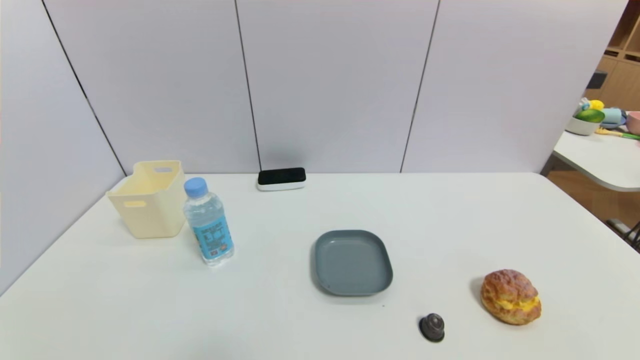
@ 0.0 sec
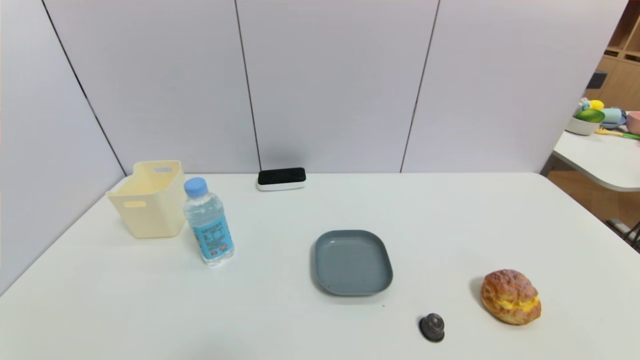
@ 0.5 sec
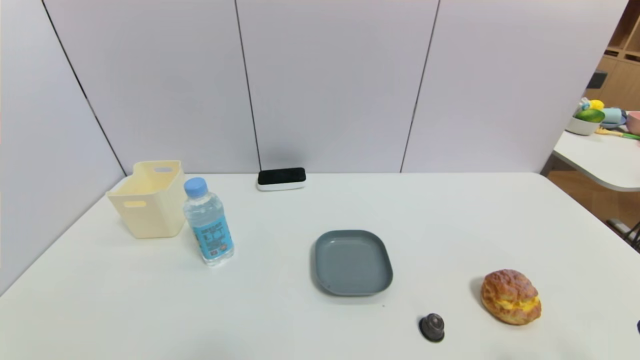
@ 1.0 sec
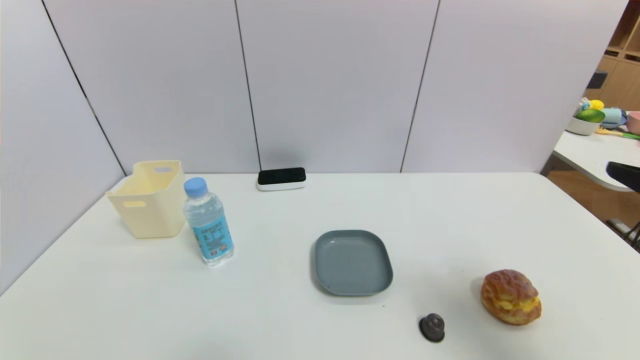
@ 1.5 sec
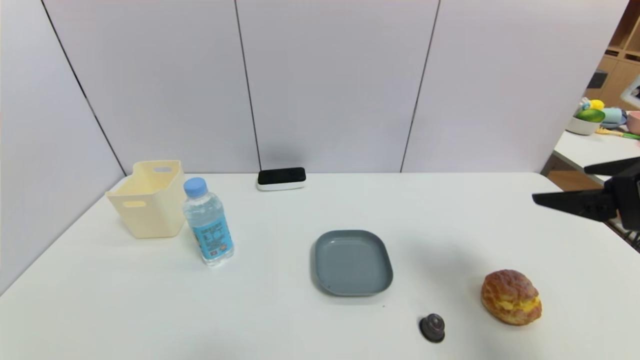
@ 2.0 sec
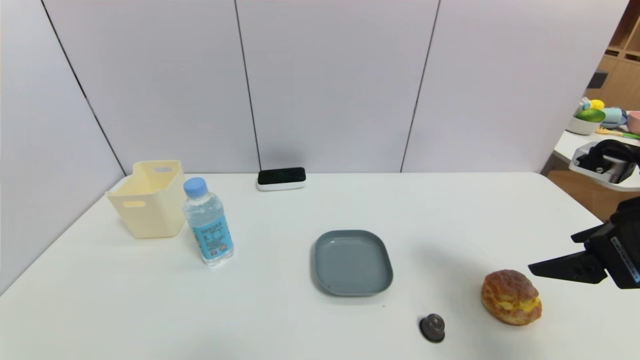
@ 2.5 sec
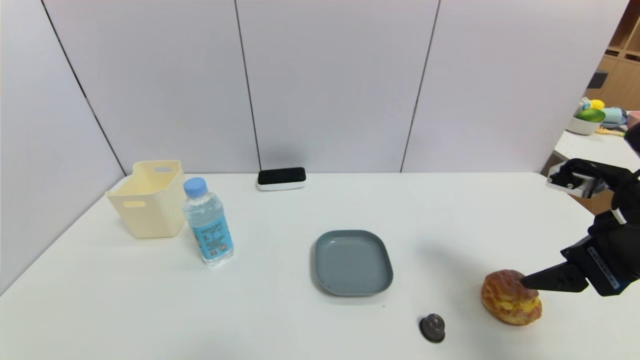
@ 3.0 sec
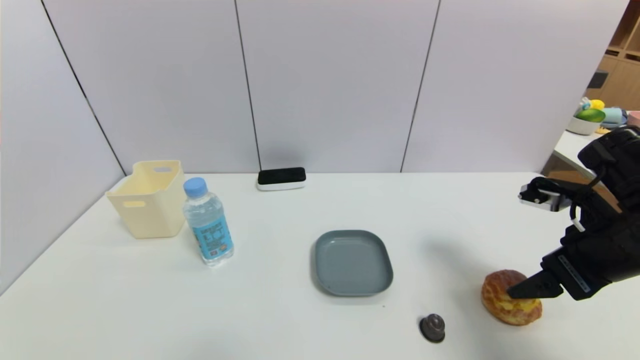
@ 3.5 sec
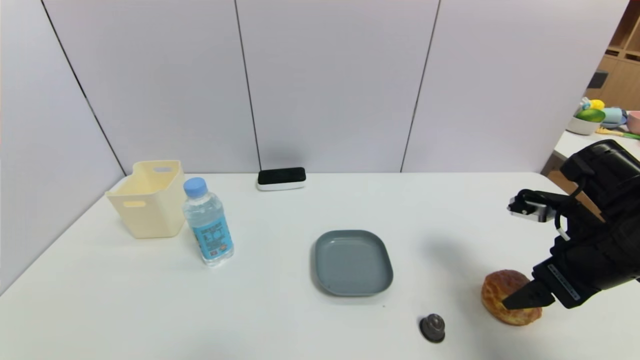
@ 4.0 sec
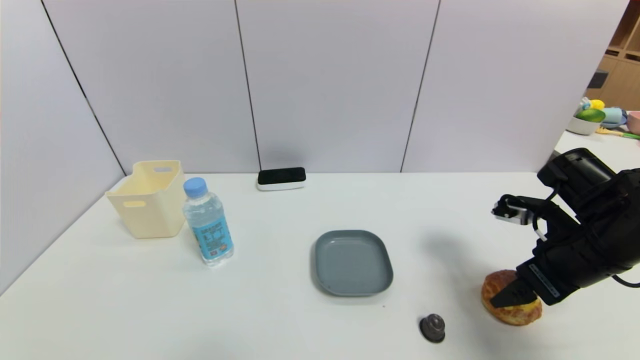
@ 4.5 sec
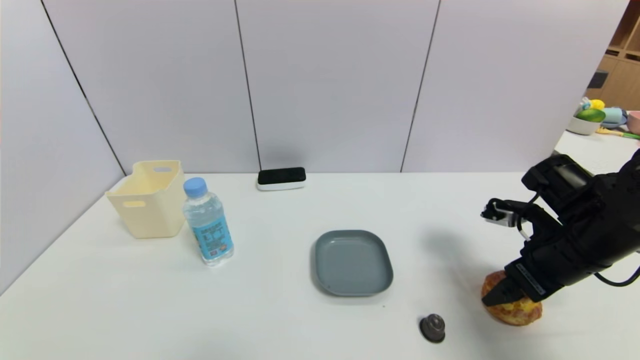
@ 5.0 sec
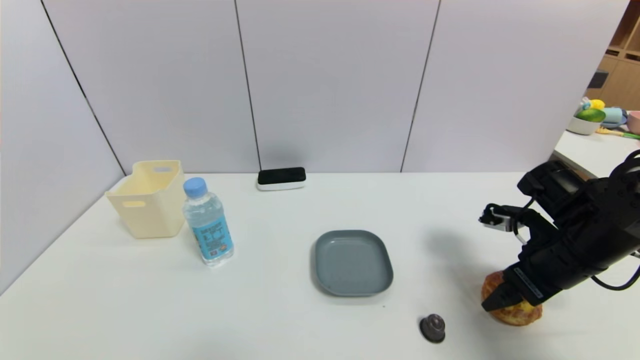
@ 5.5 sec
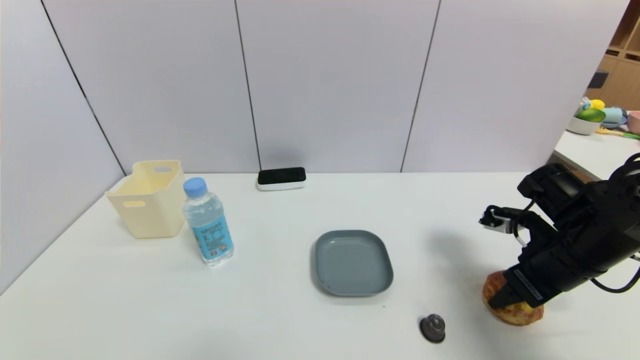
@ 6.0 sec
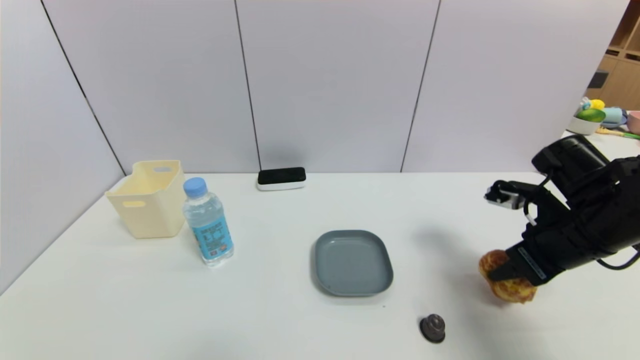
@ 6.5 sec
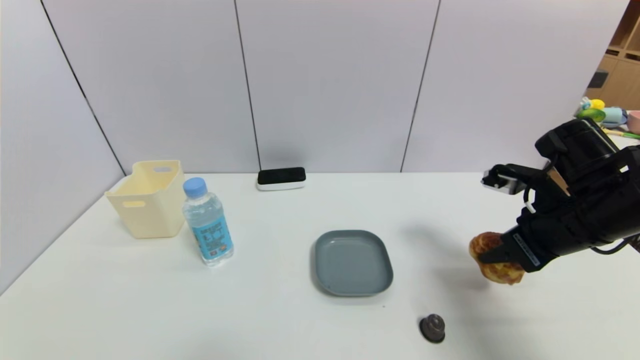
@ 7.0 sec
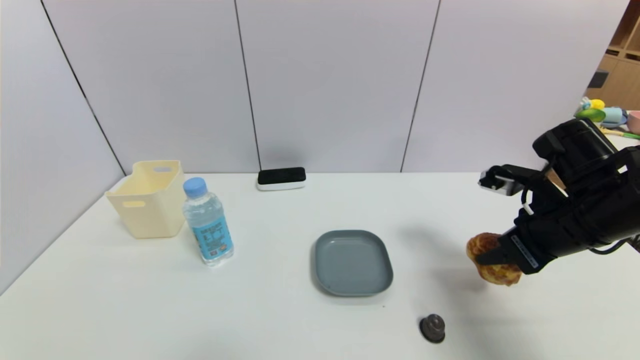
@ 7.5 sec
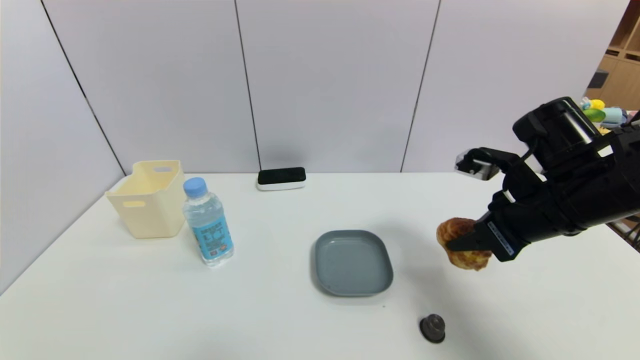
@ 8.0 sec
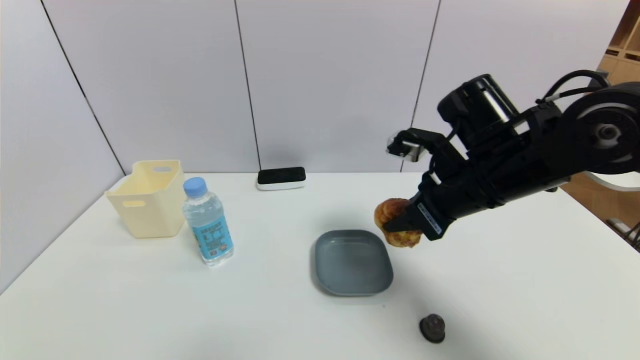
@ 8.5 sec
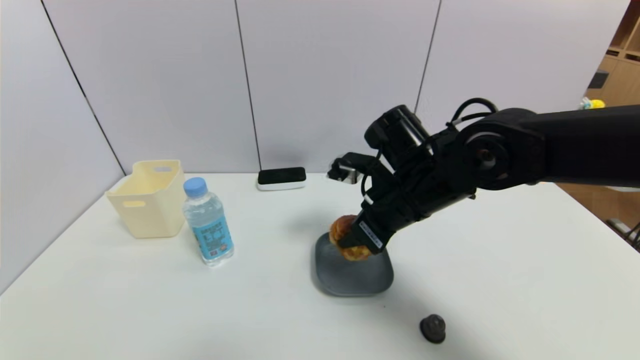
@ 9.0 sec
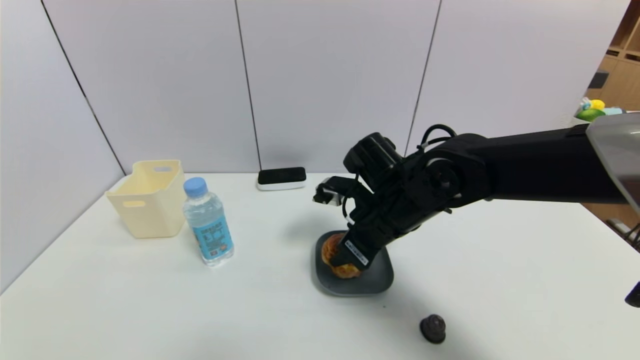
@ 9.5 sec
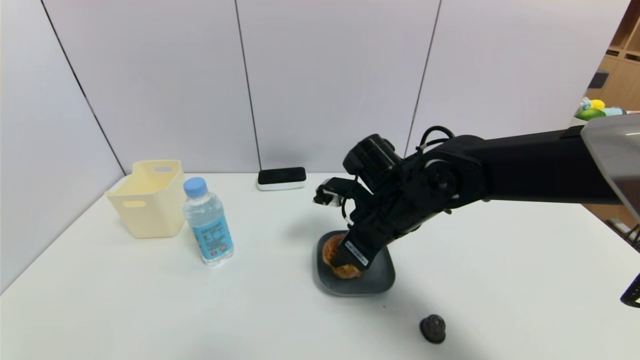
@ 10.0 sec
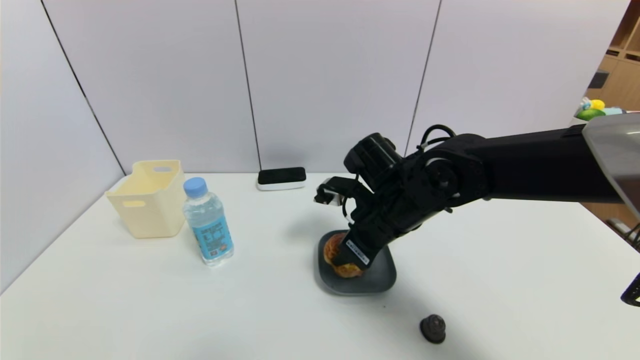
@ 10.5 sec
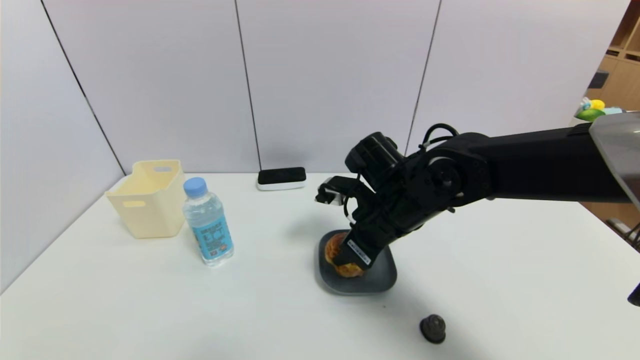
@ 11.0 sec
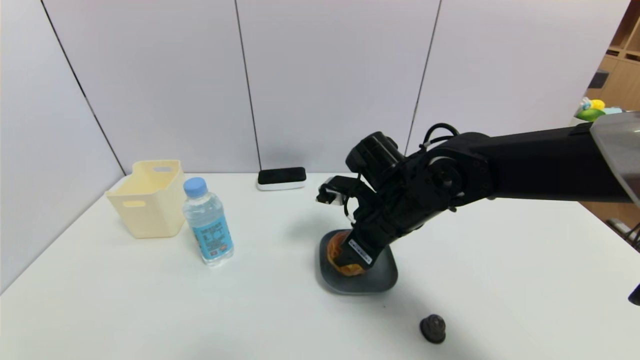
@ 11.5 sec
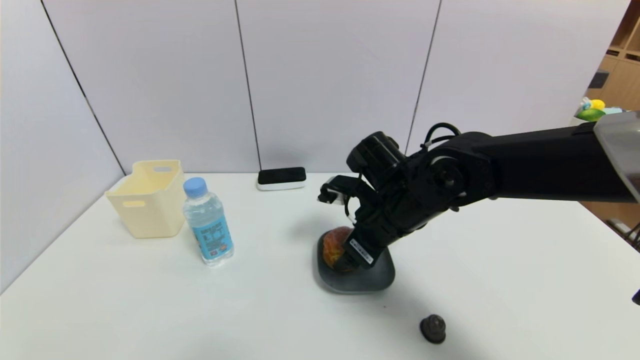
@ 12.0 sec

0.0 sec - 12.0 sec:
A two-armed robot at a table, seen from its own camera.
Task of the whole recording: use a gripper to pick the target object and place on the dish.
Step, 0.0 sec - 6.0 sec: Grasp the round bread with the right gripper.
0.0 sec - 2.0 sec: The right gripper moves upward and forward, about 30 cm.
2.0 sec - 4.0 sec: The right gripper moves downward, roughly 10 cm.
4.0 sec - 6.0 sec: The right gripper ends up roughly 5 cm from where it was, and closes.
6.0 sec - 8.0 sec: The right gripper heads upward and to the left, covering about 10 cm.
8.0 sec - 10.0 sec: The right gripper travels to the left by about 15 cm.
10.0 sec - 12.0 sec: The right gripper opens.

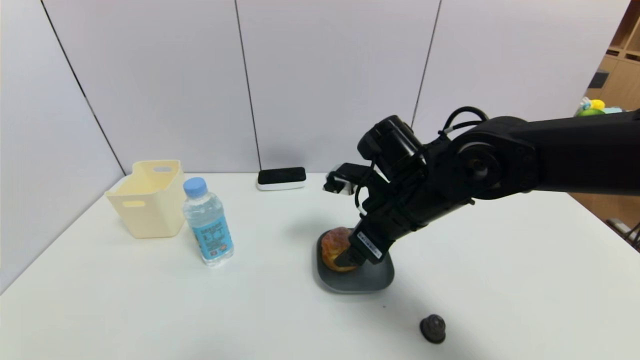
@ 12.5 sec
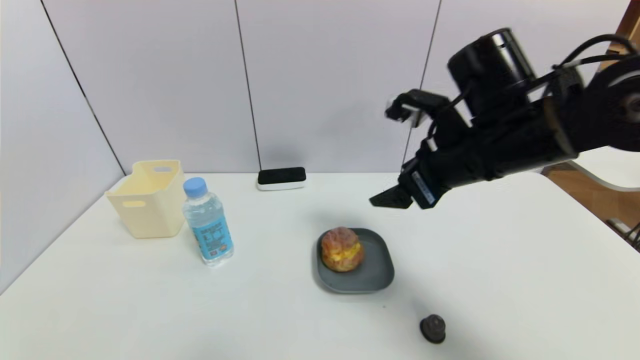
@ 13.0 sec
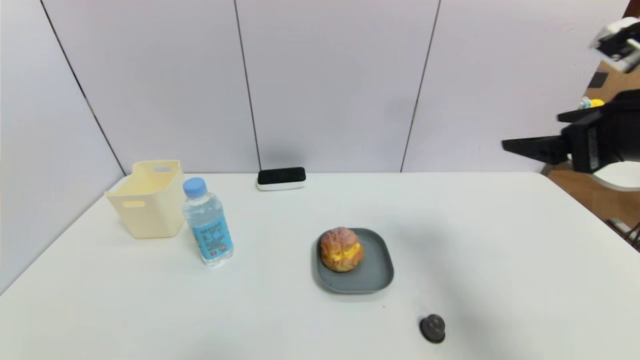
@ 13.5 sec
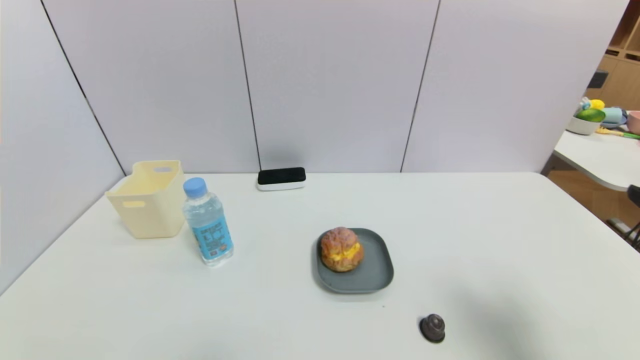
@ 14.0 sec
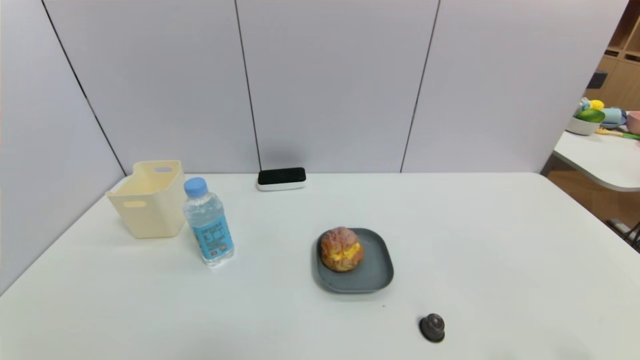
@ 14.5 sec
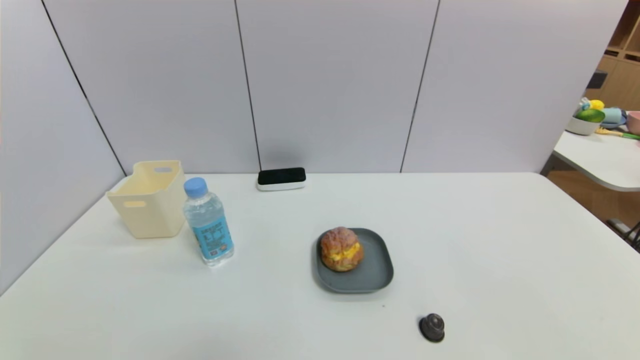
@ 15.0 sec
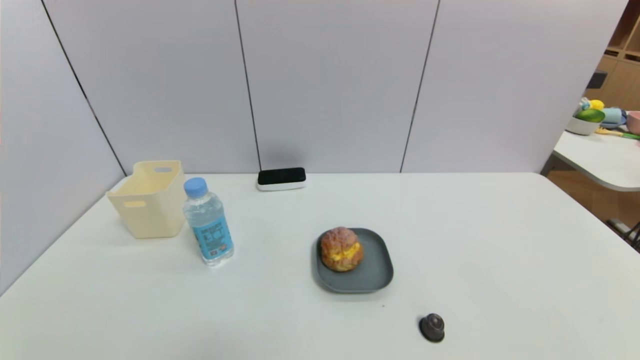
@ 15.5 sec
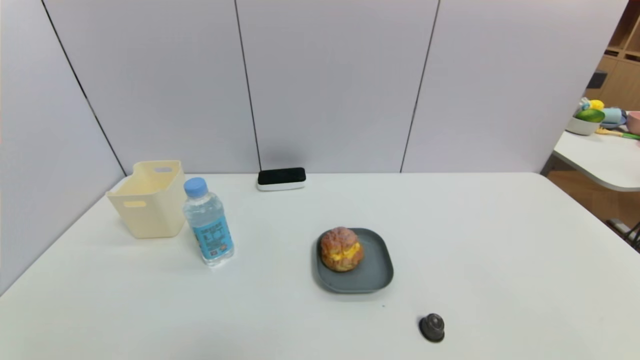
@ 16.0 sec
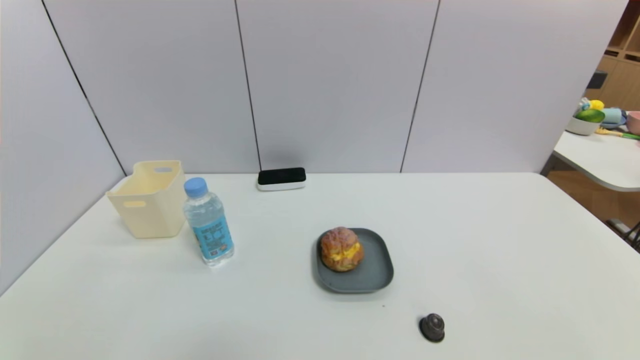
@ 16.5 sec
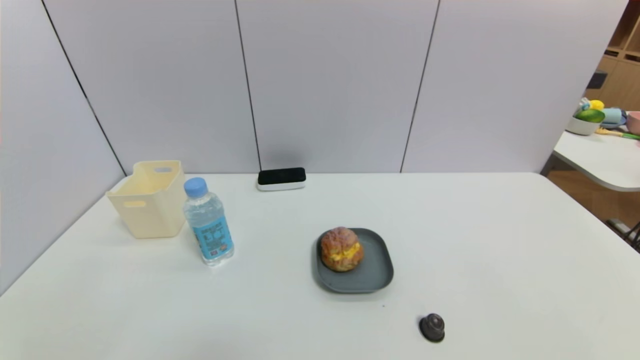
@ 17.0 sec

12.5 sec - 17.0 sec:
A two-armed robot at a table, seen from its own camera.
Task of the whole recording: use a gripper to pick the target object and place on the dish.
12.5 sec - 14.5 sec: The right gripper moves backward and to the right, about 35 cm.

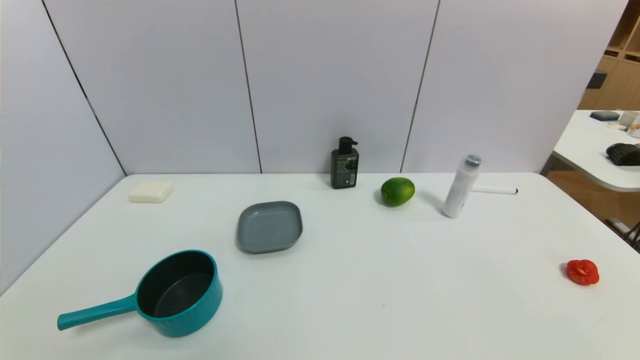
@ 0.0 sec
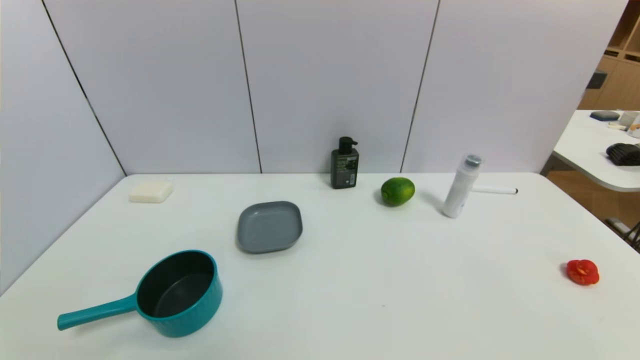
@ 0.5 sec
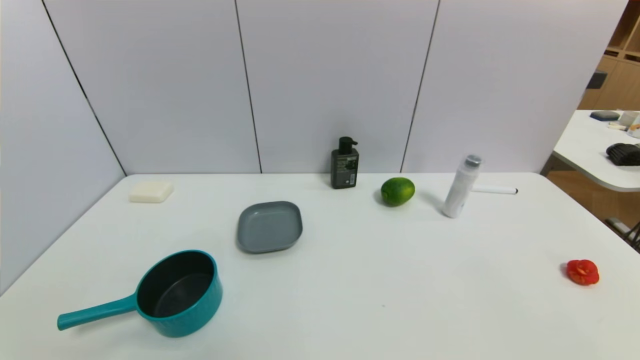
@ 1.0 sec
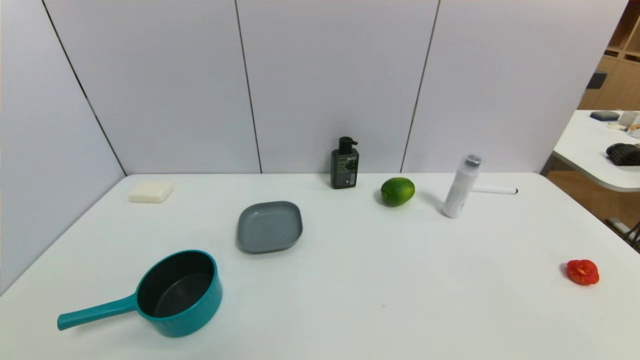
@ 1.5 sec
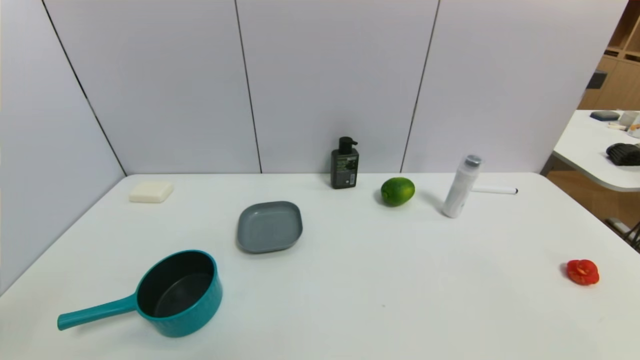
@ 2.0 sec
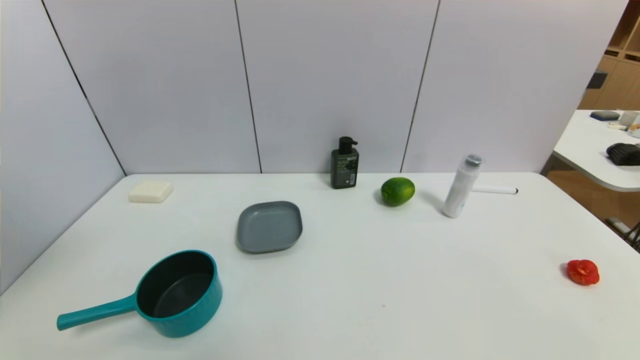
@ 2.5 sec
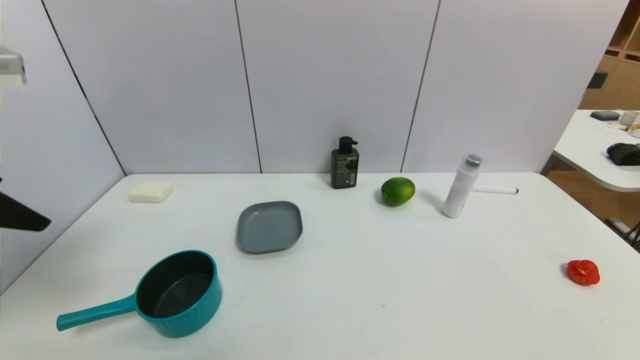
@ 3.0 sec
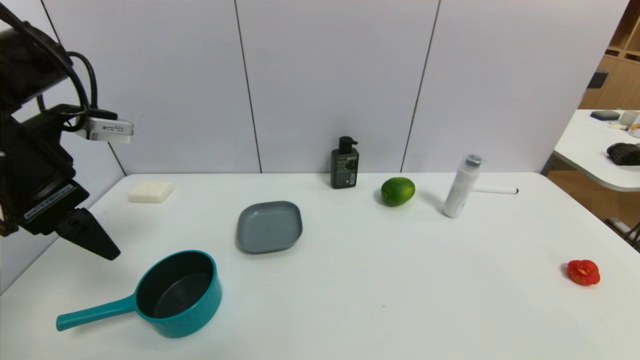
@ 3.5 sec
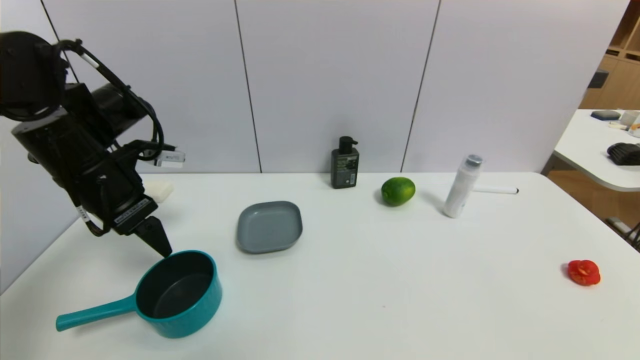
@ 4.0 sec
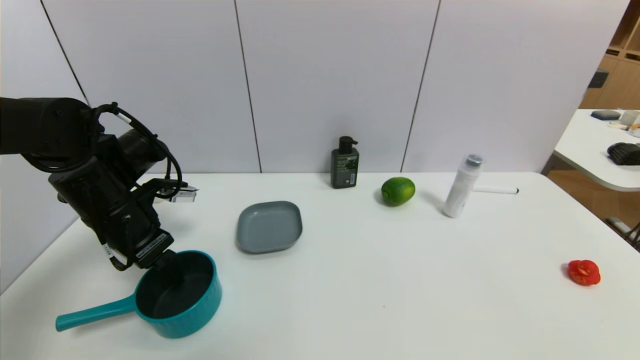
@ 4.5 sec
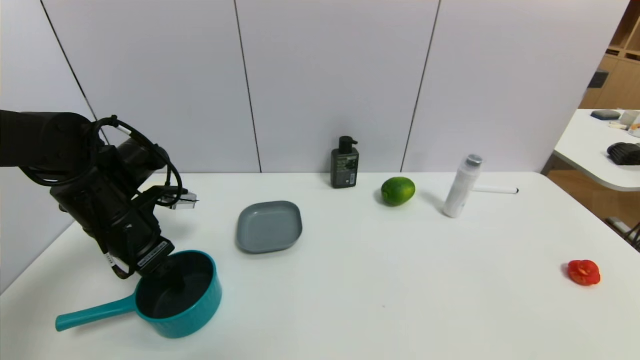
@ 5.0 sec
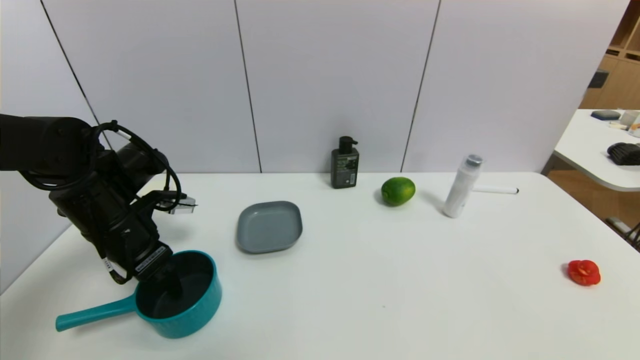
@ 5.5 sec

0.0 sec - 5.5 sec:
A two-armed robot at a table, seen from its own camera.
Task of the whole recording: use a gripper to pick the target object and place on the dish.
2.0 sec - 3.5 sec: The left gripper goes approximately 25 cm forward.
3.5 sec - 5.5 sec: The left gripper moves downward and forward, roughly 15 cm.
